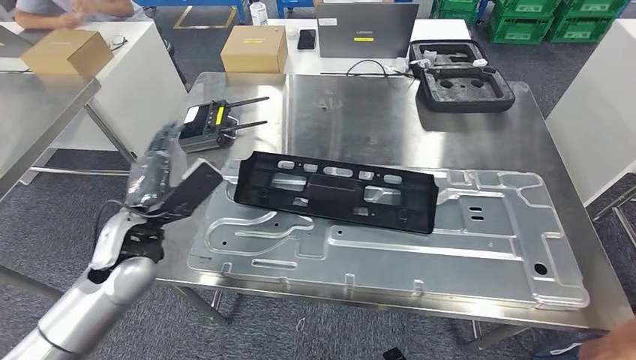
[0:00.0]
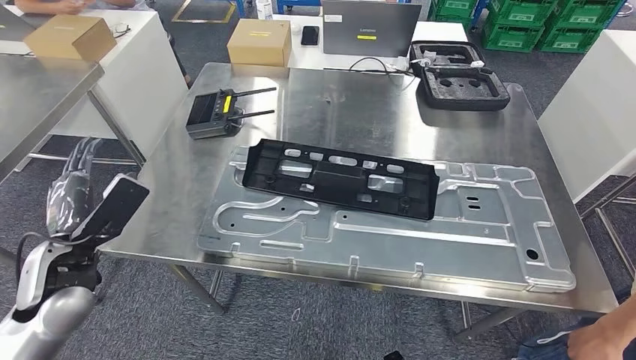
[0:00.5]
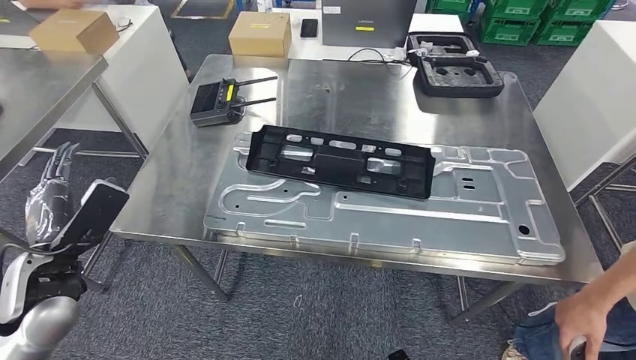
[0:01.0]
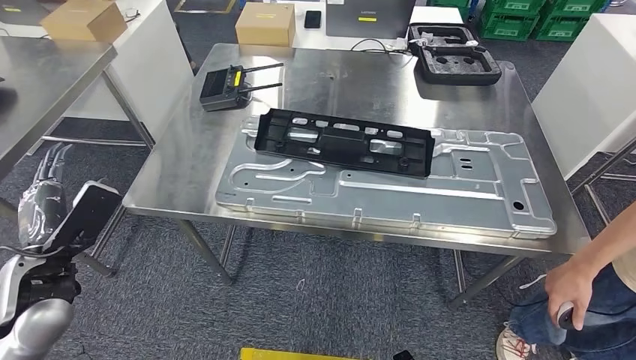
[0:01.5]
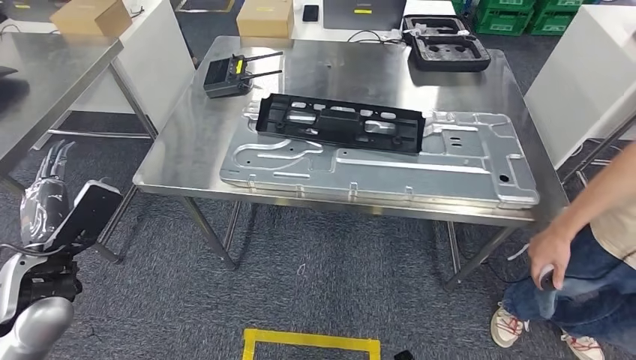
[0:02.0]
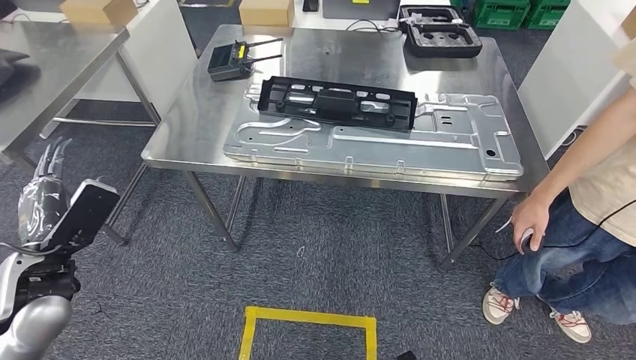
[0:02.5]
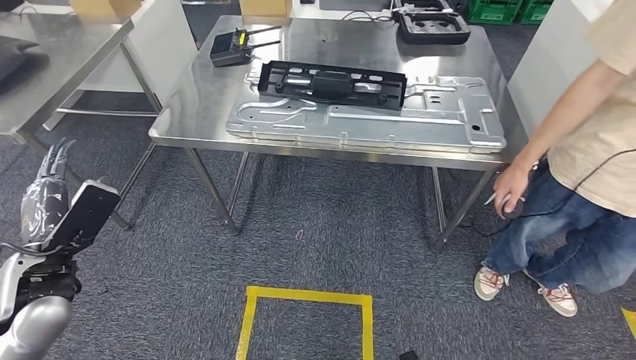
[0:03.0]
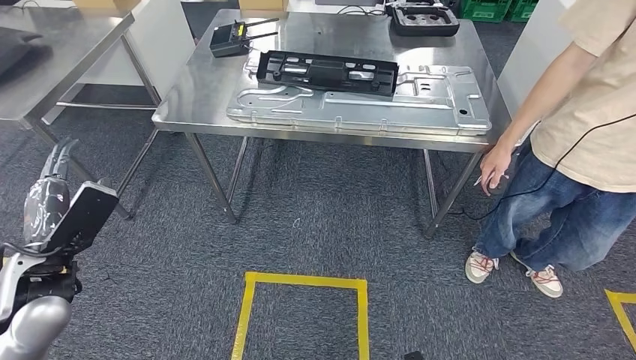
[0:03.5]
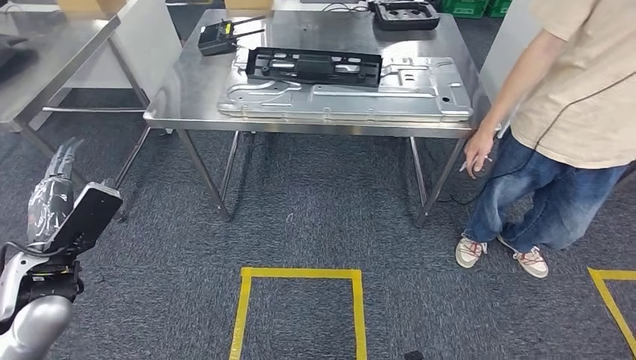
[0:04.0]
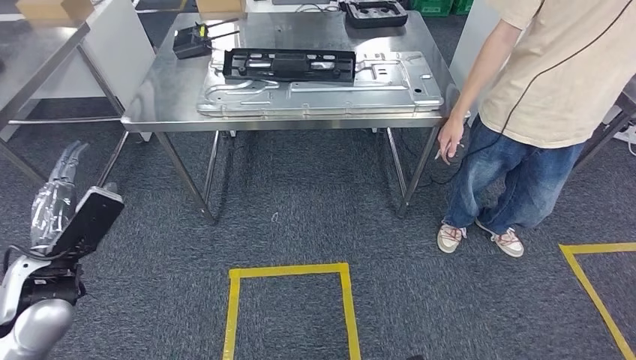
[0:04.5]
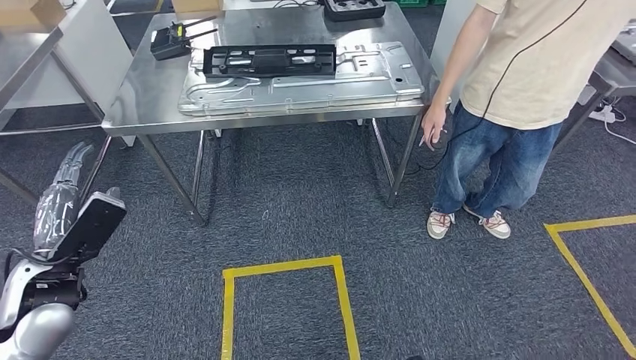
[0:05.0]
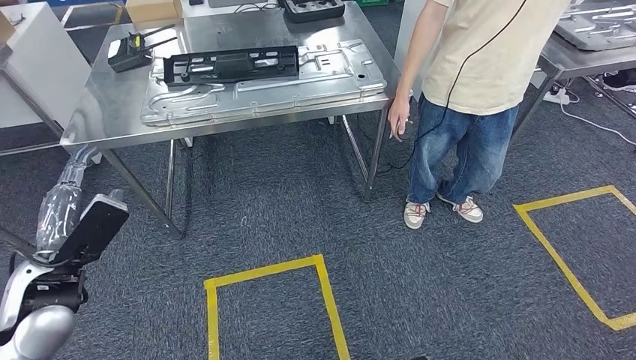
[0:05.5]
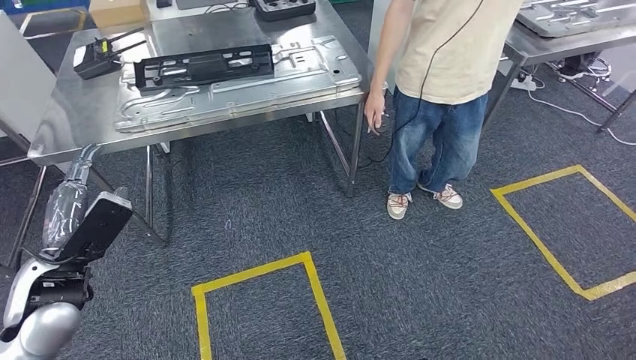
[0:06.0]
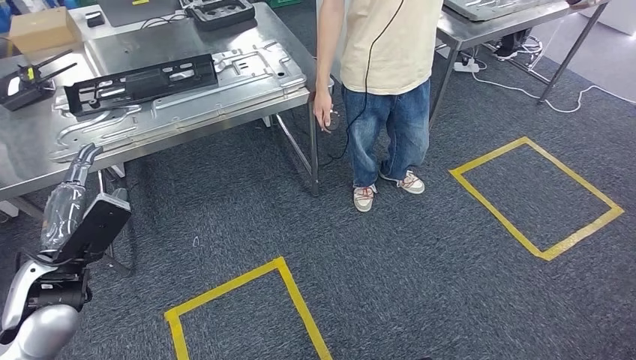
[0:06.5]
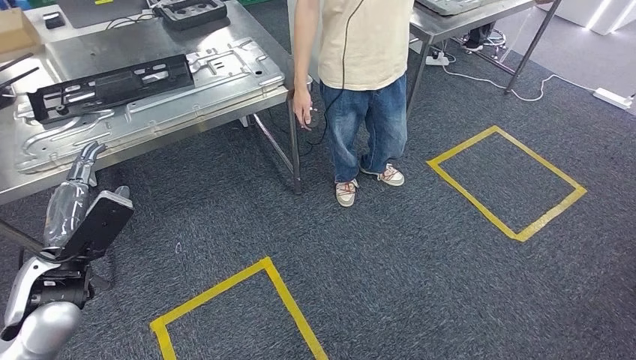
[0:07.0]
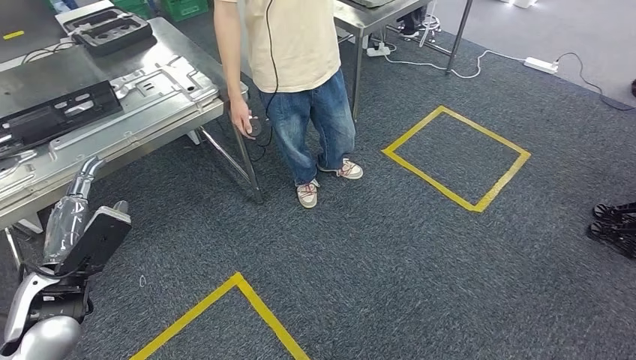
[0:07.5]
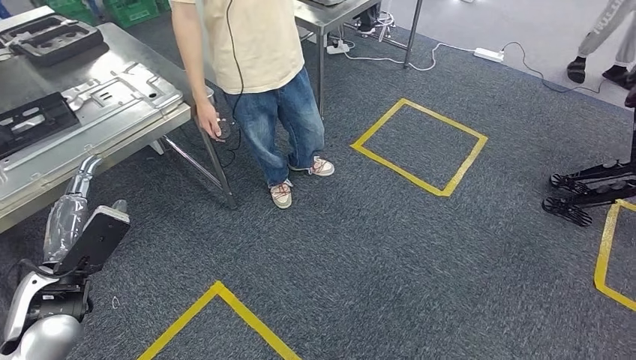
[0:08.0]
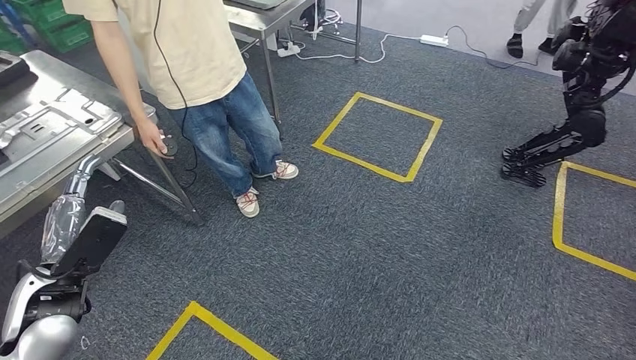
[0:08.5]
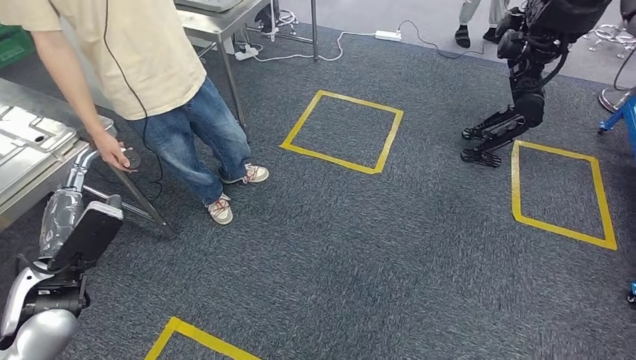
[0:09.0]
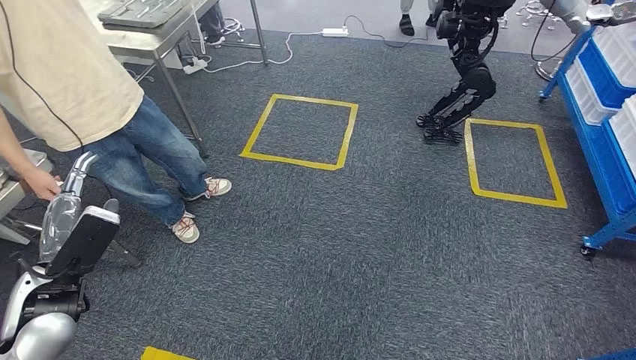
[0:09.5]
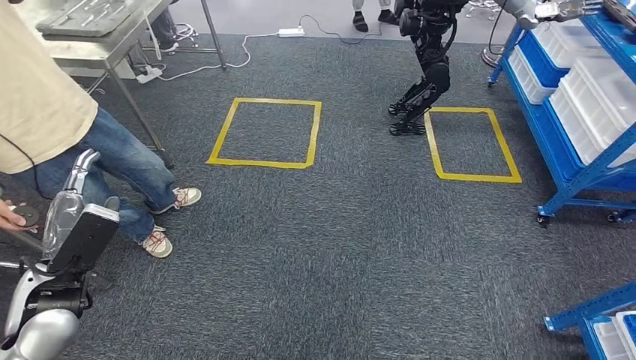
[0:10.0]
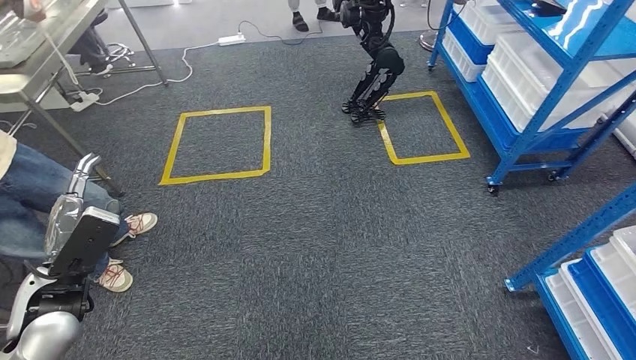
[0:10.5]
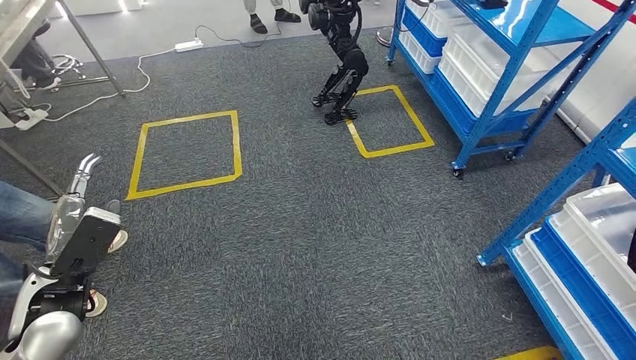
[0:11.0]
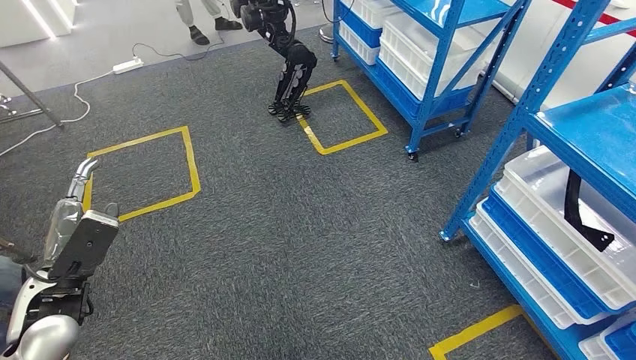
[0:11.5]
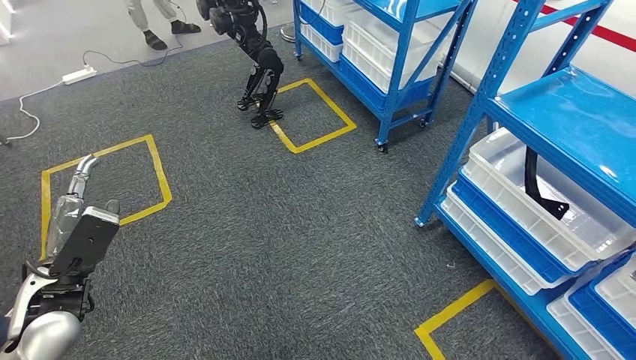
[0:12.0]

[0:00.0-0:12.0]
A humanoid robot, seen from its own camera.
Step, 0:00.0 to 0:02.5: Insert the large material into the corresponding slot on the workbench.

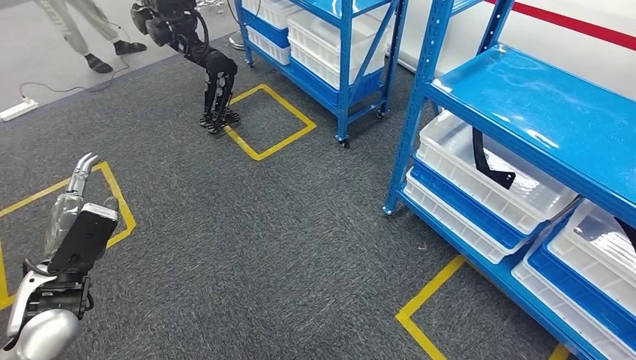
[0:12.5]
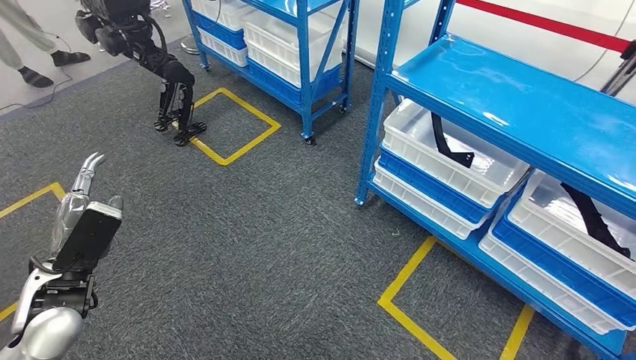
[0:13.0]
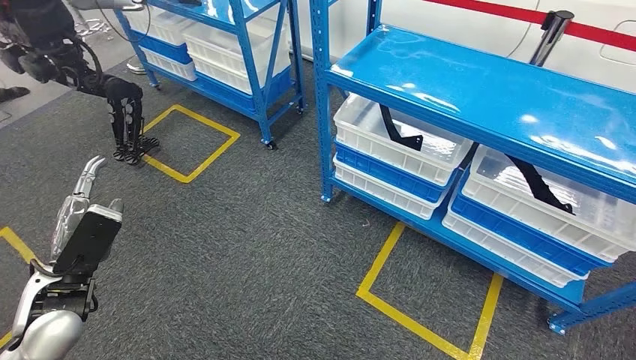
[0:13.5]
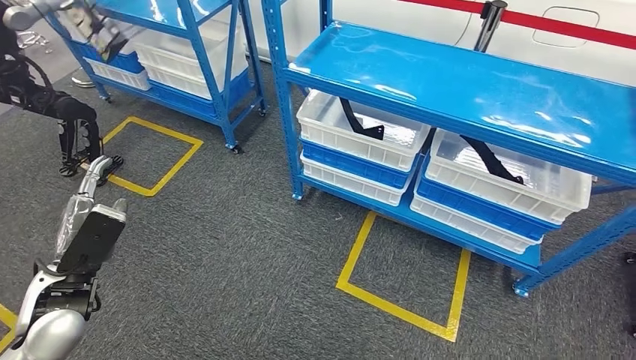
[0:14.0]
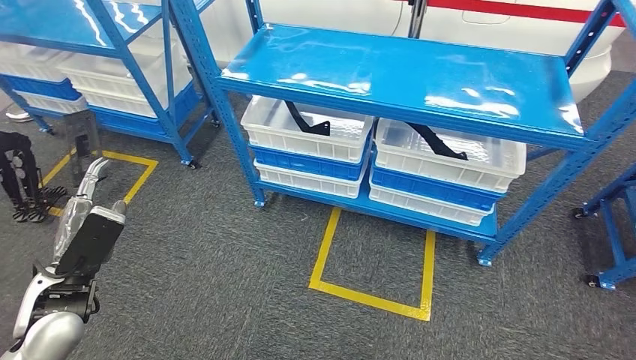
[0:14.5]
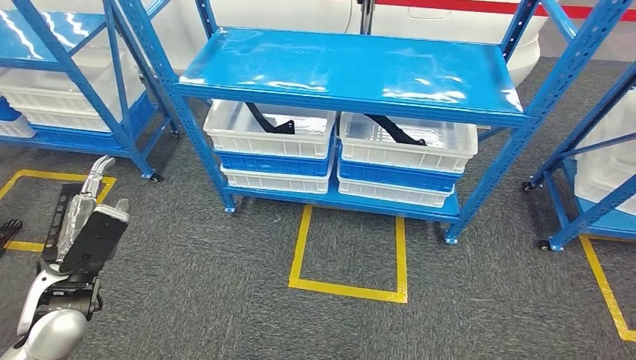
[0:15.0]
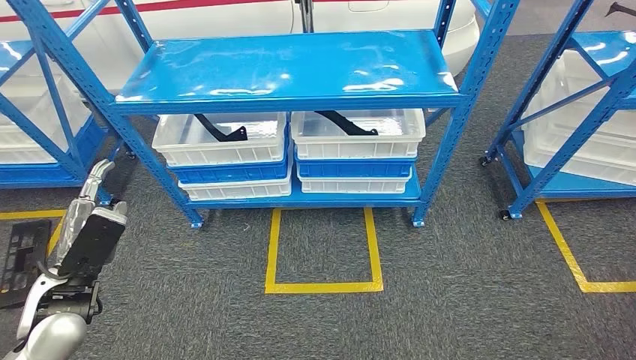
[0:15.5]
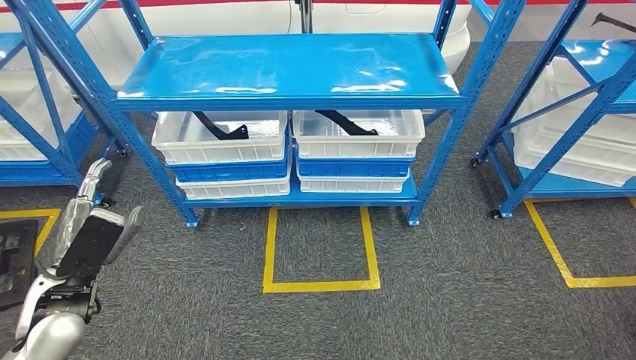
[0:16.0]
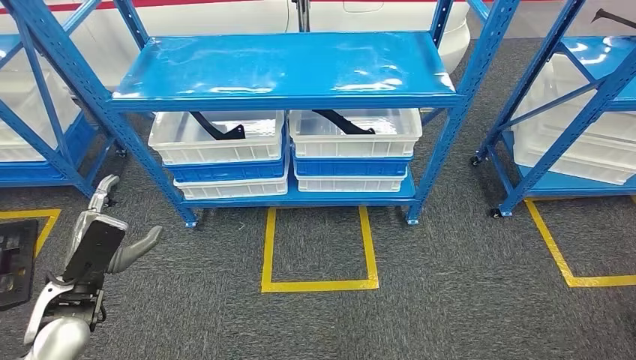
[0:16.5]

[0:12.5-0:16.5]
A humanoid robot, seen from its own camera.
Step, 0:12.5 to 0:16.0: Return to the initial position at the shelf.
